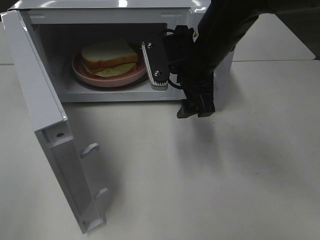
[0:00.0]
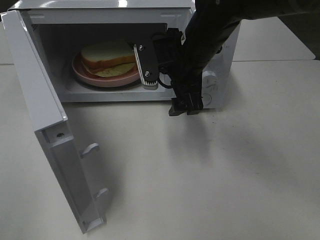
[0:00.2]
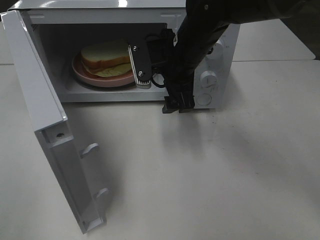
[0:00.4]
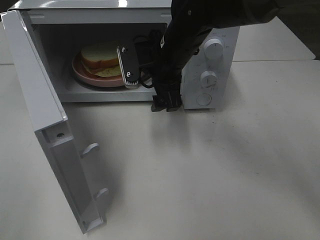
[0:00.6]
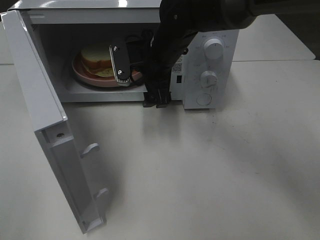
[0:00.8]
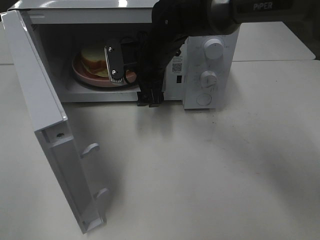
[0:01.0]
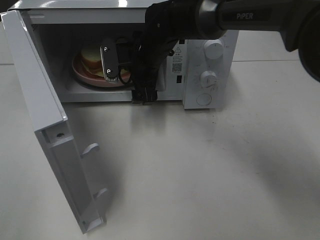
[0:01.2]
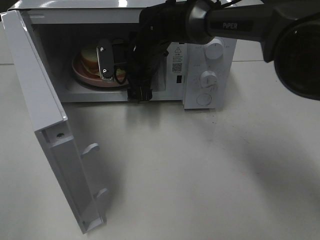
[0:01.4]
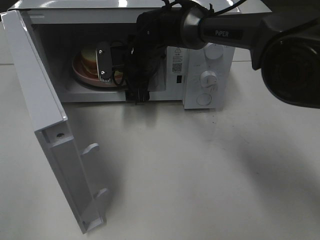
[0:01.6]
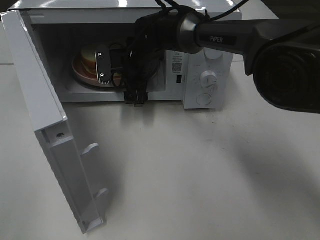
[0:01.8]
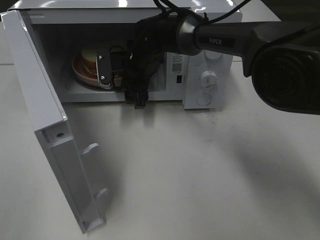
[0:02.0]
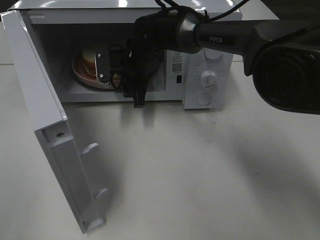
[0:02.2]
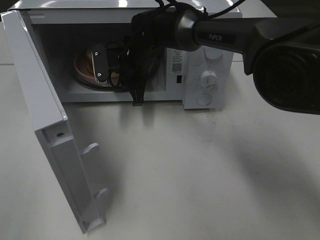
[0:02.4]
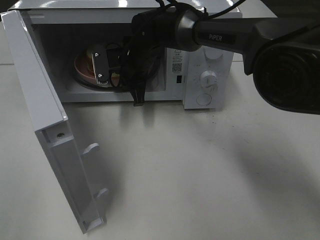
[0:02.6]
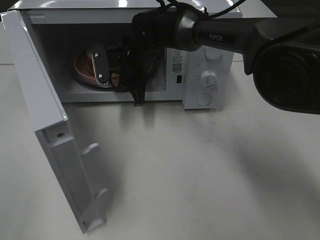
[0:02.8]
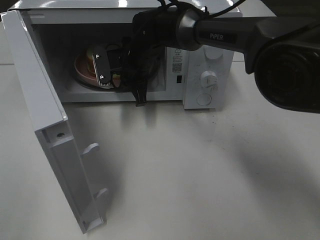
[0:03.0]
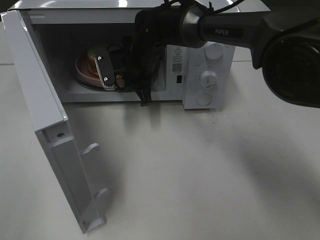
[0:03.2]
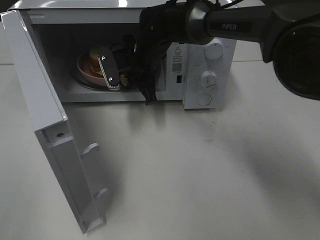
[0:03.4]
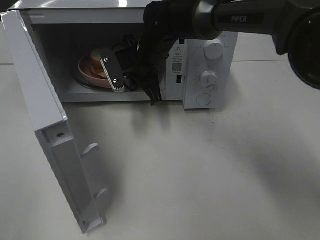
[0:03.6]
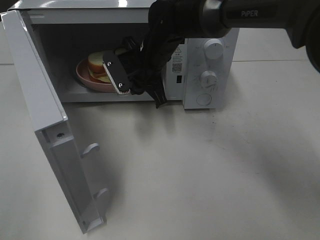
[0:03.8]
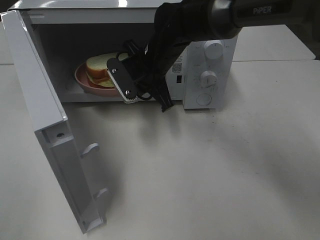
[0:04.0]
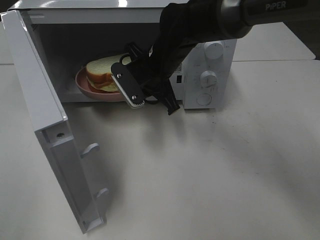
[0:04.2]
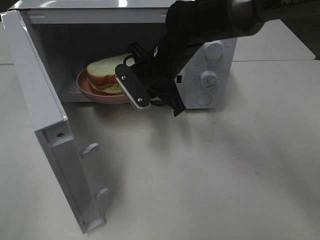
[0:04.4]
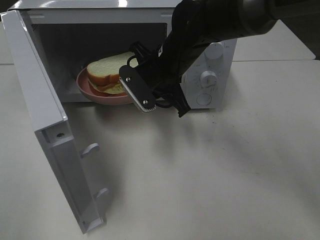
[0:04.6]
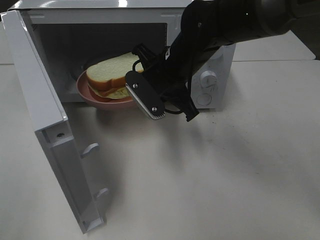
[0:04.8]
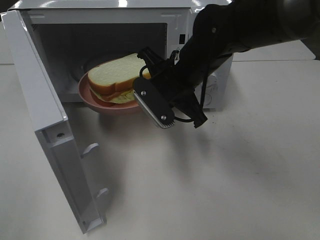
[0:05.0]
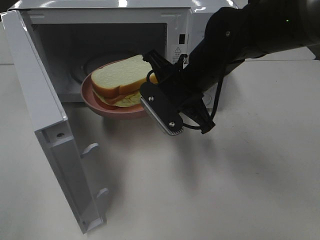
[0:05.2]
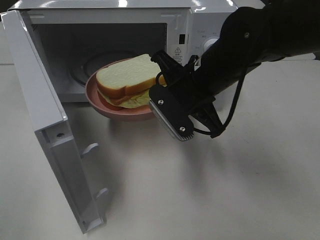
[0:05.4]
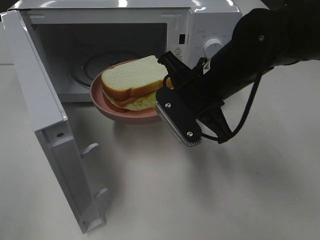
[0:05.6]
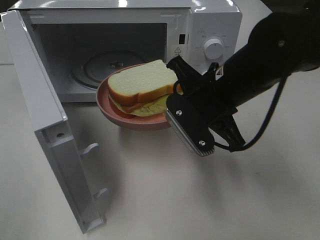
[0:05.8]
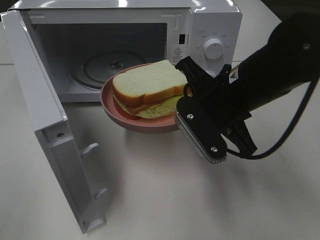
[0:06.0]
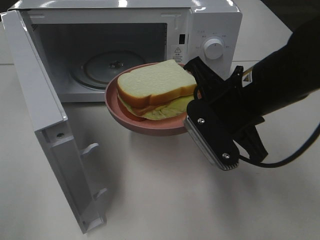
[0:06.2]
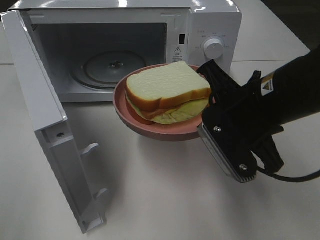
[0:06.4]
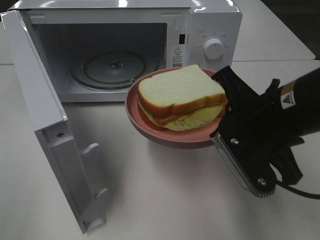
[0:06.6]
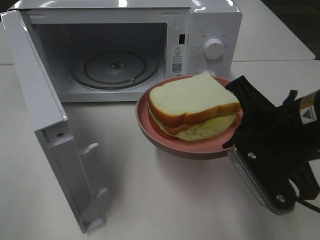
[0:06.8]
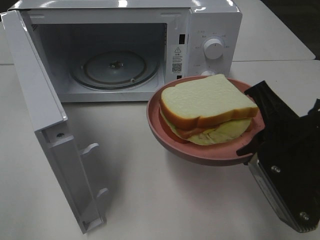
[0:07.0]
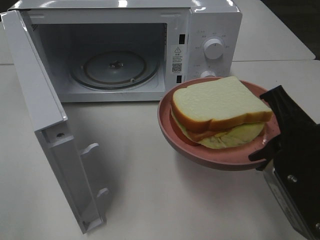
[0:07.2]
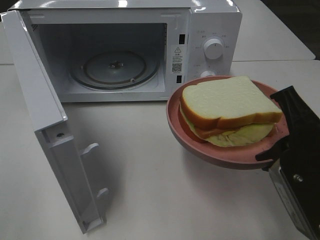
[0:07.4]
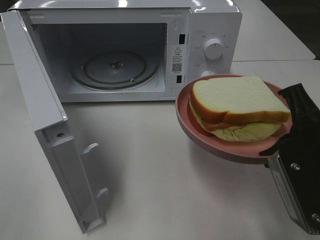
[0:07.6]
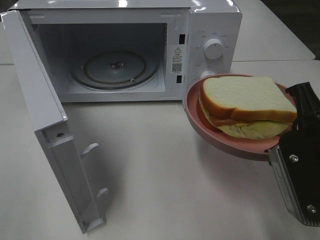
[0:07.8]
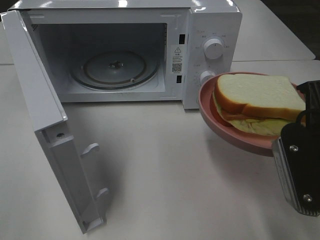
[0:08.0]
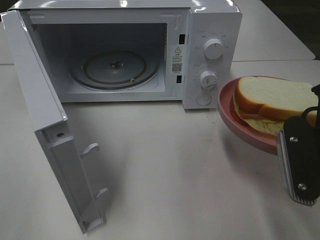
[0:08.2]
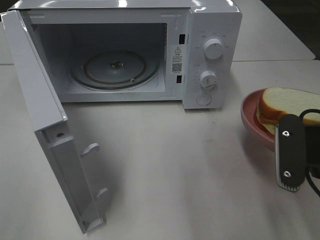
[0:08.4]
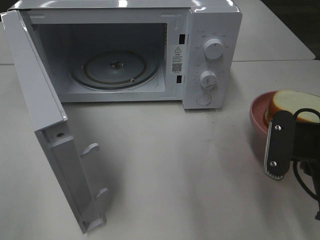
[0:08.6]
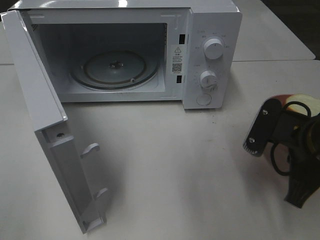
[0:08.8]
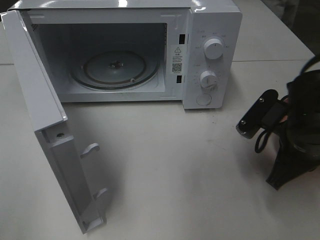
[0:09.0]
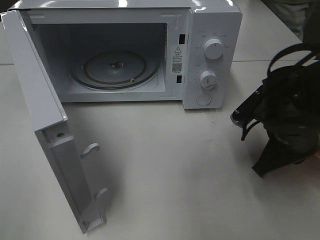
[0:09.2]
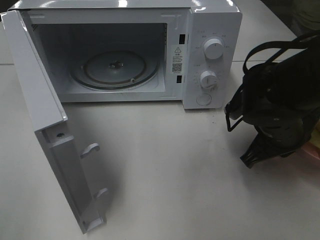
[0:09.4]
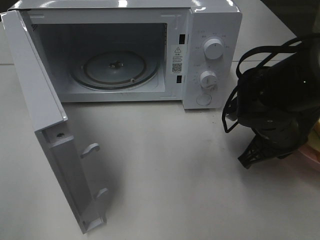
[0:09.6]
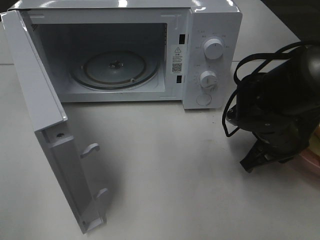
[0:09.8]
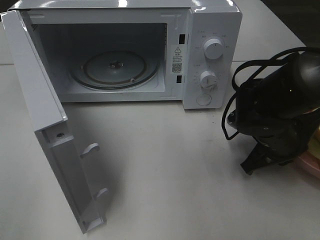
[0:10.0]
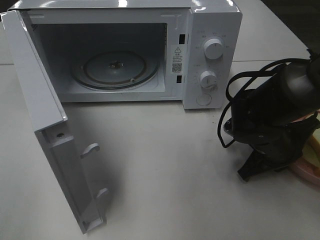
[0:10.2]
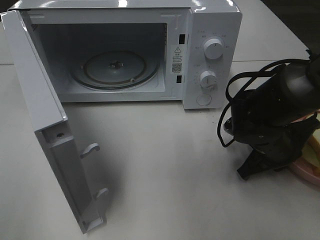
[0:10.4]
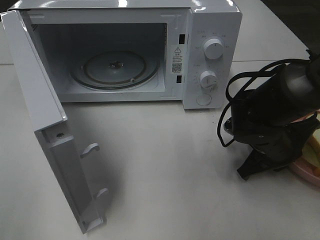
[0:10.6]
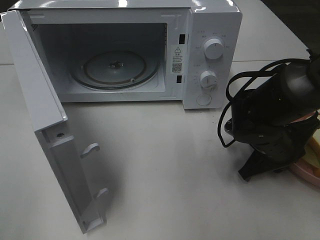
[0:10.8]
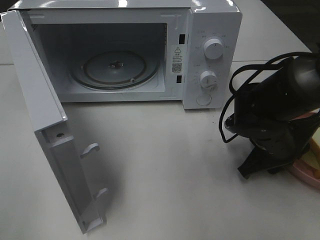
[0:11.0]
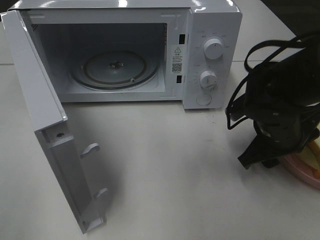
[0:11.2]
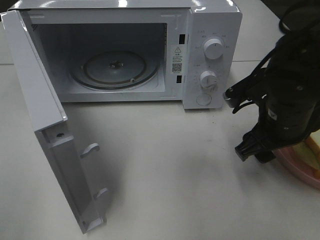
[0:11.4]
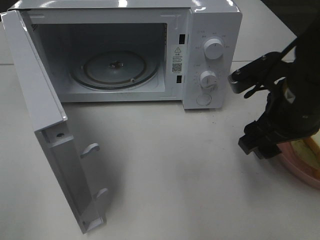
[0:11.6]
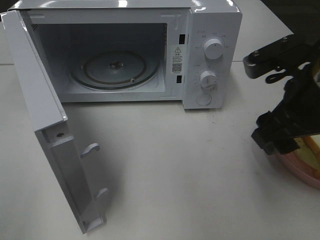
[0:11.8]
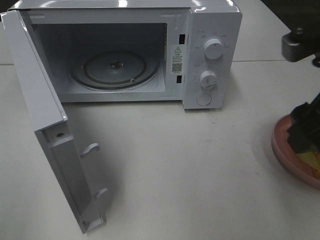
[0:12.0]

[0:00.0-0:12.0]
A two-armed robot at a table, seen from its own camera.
Task of the whole recording: Heat Sandwich.
Step, 0:00.0 to 0:02.4: Right hand: grab the plate with the sandwich.
Step, 0:02.6 to 0:12.0: Right hand: place the plate on the table.
0:00.0 to 0:01.6: The right gripper moves forward, to the left and downward, roughly 15 cm.
0:01.6 to 0:03.0: The right gripper closes up.
0:03.0 to 0:04.4: The right gripper travels backward and to the right by some 10 cm.
0:04.4 to 0:06.0: The right gripper travels backward and to the right by about 15 cm.
0:06.0 to 0:07.6: The right gripper is displaced backward and to the right by approximately 15 cm.
0:07.6 to 0:09.0: The right gripper travels forward and downward by about 10 cm.
0:09.0 to 0:10.4: The right gripper heads downward, covering approximately 5 cm.
0:10.4 to 0:12.0: The right gripper shifts approximately 25 cm upward and backward, and opens up.

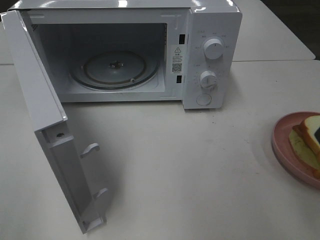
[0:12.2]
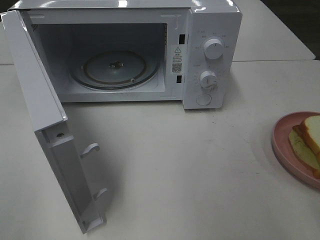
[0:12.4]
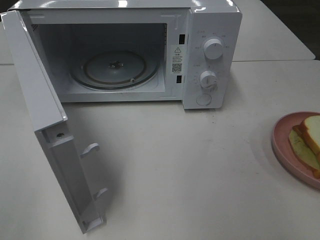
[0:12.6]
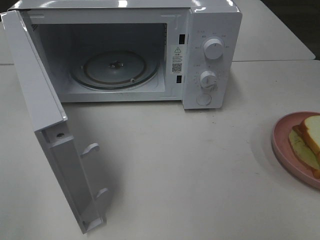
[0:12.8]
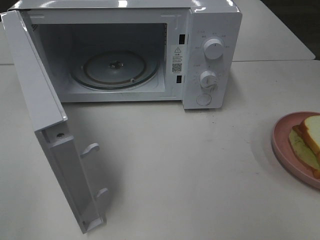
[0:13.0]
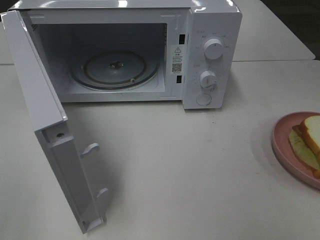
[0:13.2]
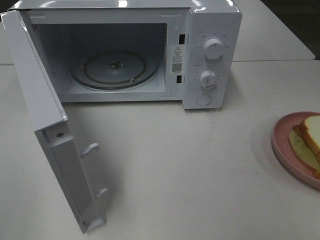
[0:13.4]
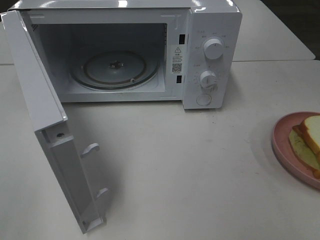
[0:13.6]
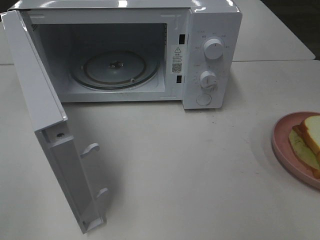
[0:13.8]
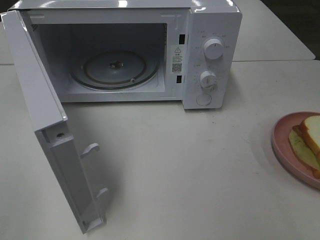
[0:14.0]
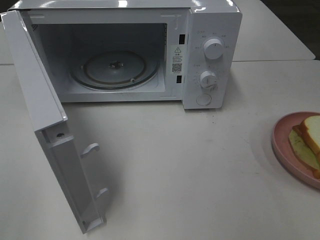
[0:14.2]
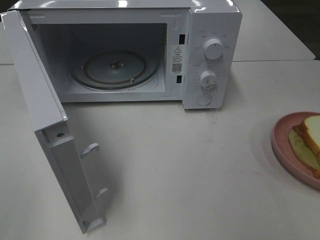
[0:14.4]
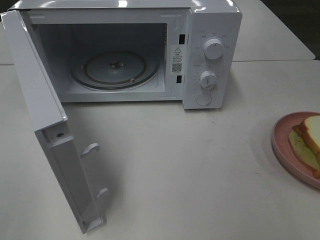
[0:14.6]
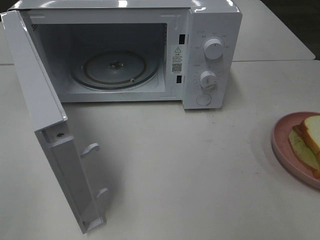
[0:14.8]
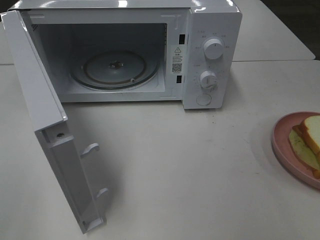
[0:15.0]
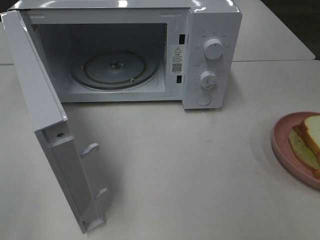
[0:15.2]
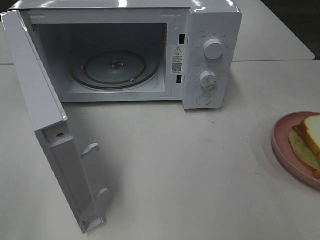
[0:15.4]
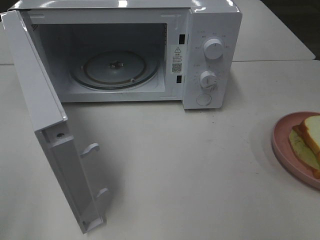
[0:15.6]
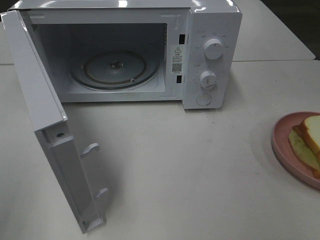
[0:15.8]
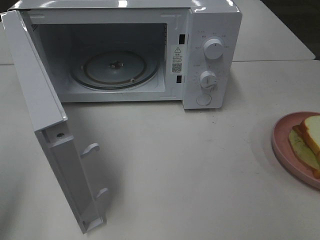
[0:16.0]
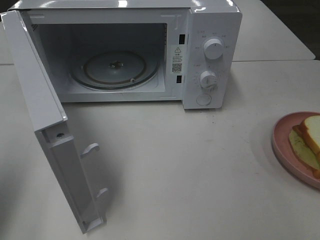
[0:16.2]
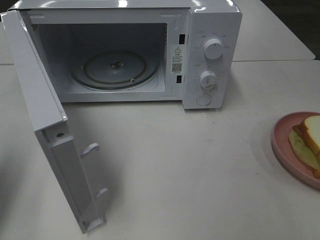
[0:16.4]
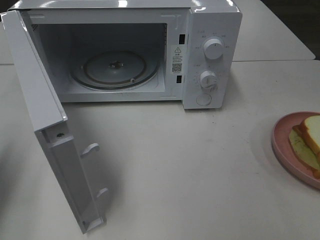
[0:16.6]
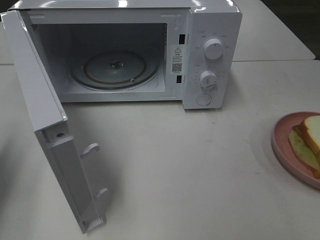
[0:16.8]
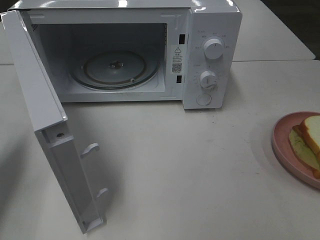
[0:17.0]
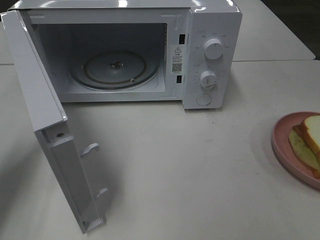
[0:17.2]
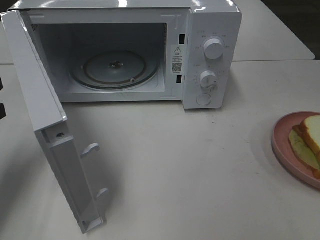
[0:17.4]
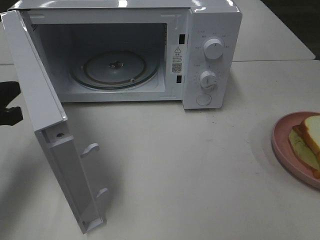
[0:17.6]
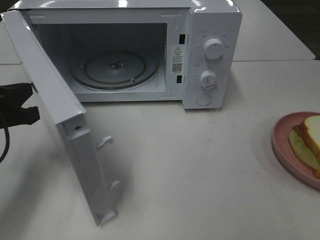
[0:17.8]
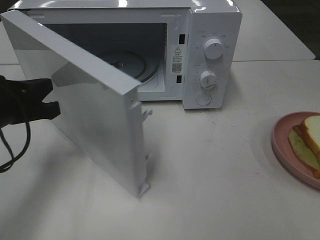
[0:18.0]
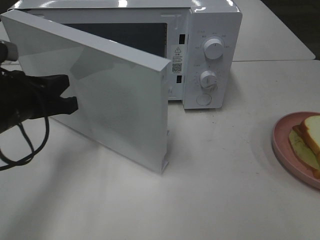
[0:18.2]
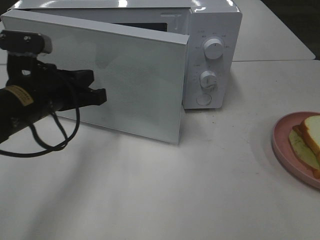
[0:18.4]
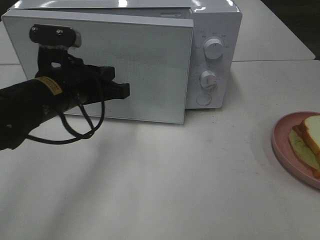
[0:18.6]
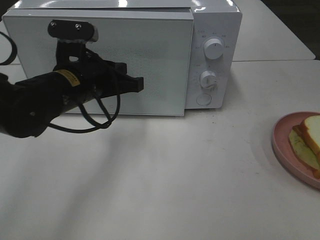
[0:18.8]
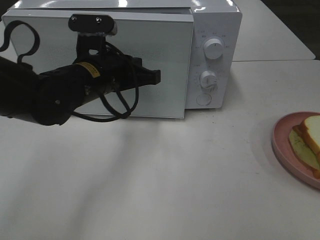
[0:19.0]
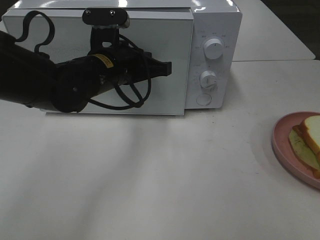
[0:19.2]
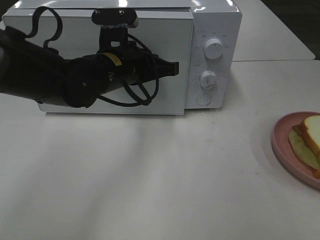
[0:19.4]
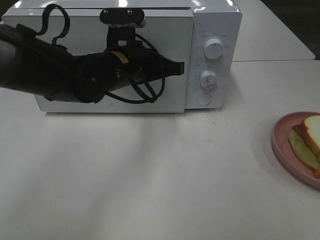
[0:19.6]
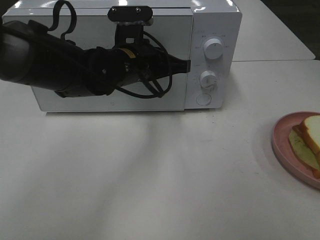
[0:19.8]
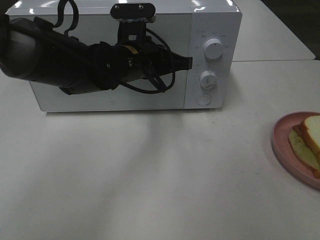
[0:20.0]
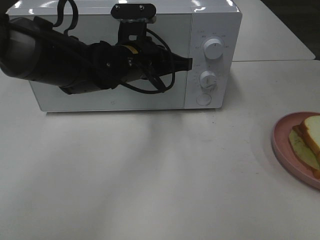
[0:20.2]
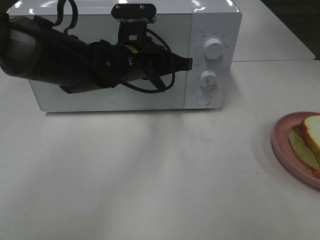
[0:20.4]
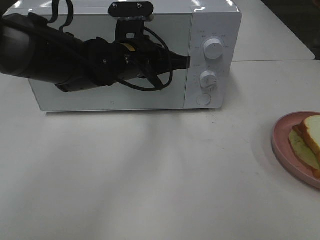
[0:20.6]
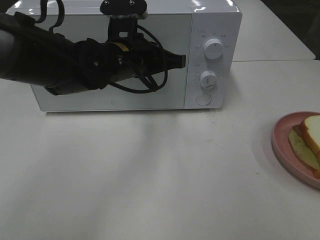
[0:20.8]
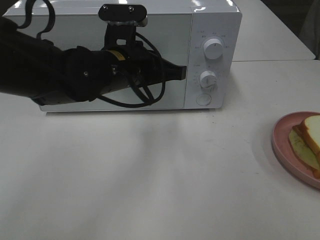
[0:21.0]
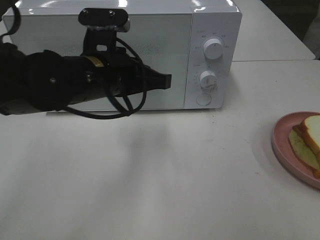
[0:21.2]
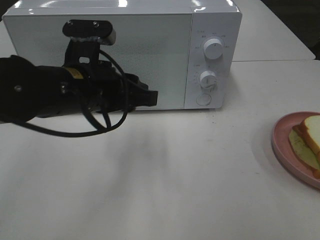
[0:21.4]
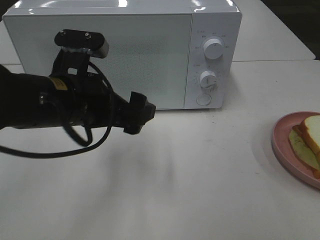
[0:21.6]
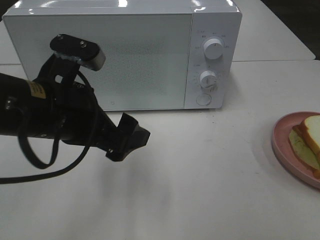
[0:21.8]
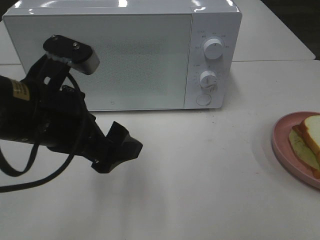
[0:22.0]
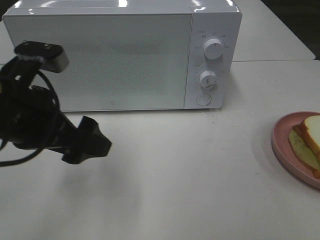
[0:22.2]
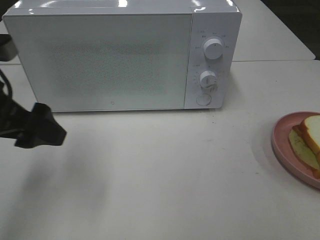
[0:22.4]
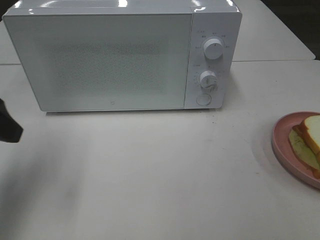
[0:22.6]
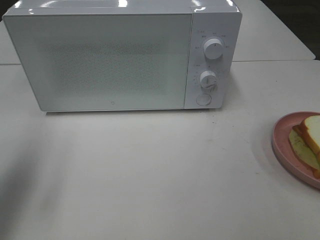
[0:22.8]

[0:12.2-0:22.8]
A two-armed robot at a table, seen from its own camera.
Task of the whole recording: Heat Sandwich.
Step, 0:12.2 to 0:20.8: Left hand: close the microwave door.
0:12.2 to 0:13.8: The right gripper shifts approximately 15 cm backward and to the right.
0:13.8 to 0:15.2: Both grippers stay about where they are.
0:15.2 to 0:16.8: The left gripper heads forward, covering some 20 cm, and closes.
0:16.8 to 0:18.2: The left gripper goes approximately 15 cm to the right and forward.
0:18.2 to 0:19.8: The left gripper travels to the right and forward by some 20 cm.
0:19.8 to 0:21.2: The left gripper moves backward, about 5 cm.
0:21.2 to 0:22.8: The left gripper travels to the left and backward by some 25 cm, and opens up.
